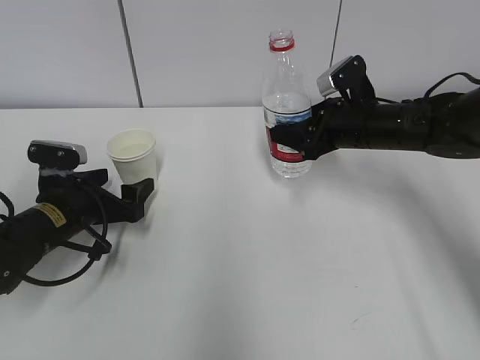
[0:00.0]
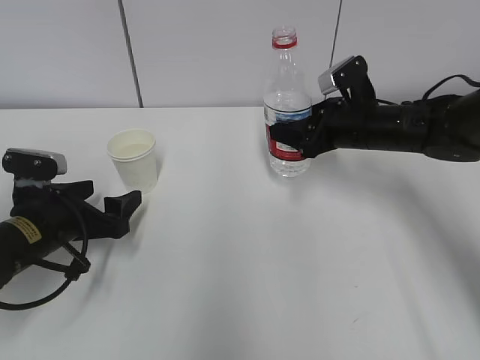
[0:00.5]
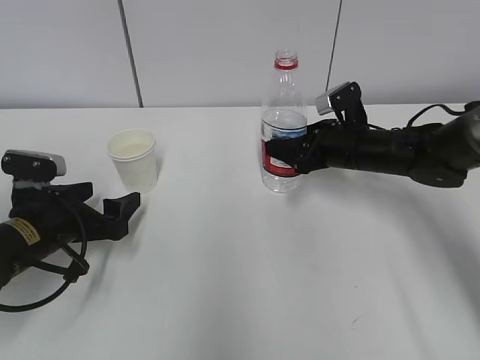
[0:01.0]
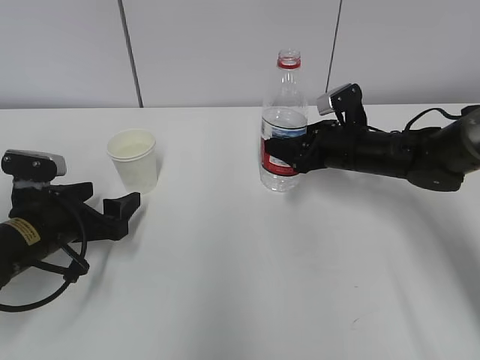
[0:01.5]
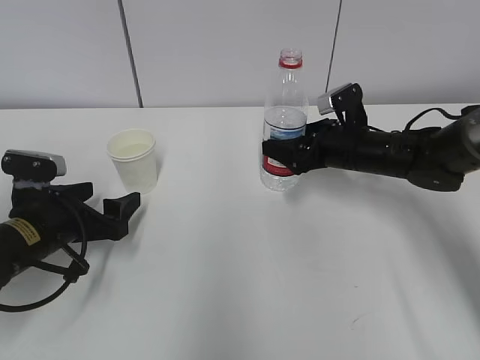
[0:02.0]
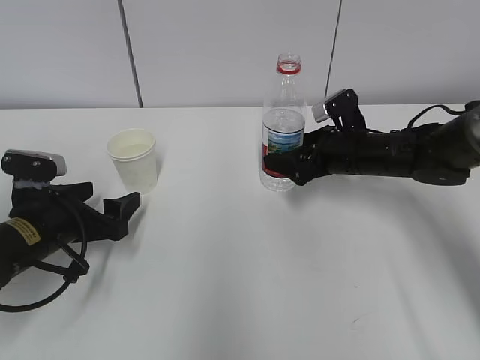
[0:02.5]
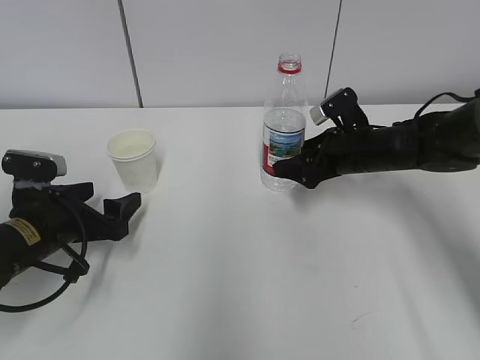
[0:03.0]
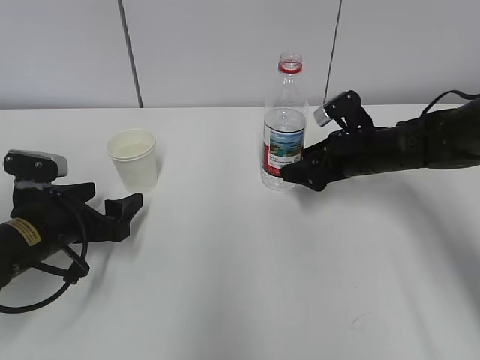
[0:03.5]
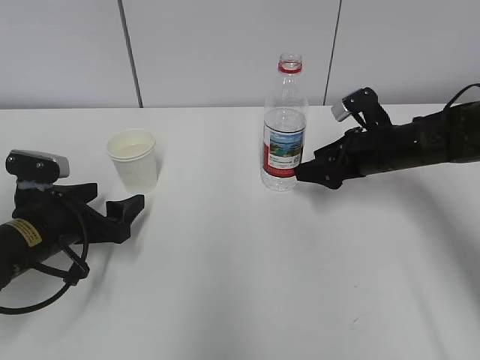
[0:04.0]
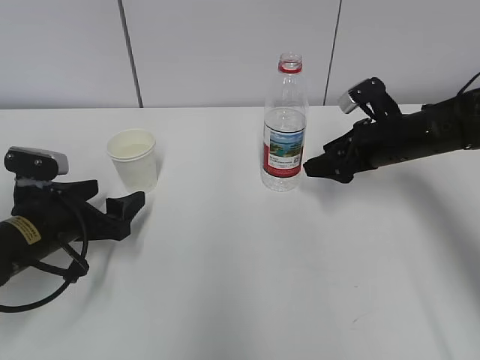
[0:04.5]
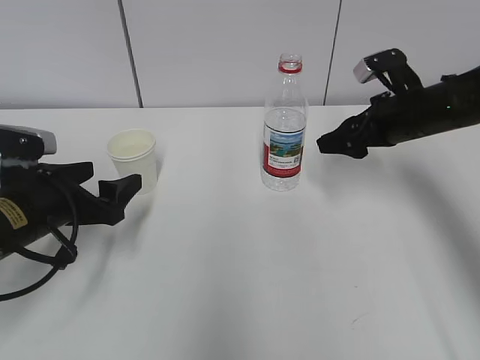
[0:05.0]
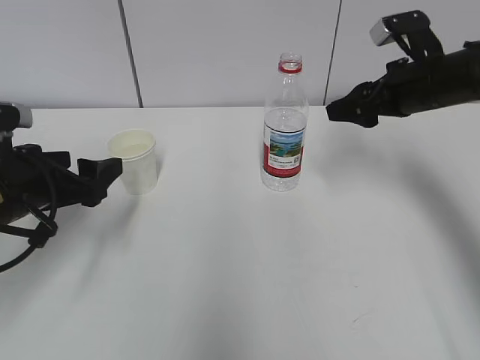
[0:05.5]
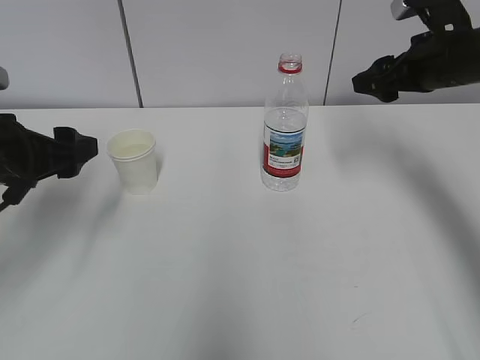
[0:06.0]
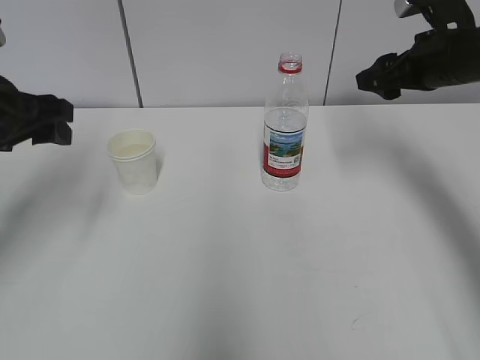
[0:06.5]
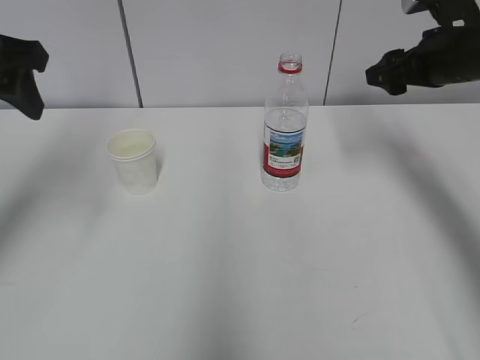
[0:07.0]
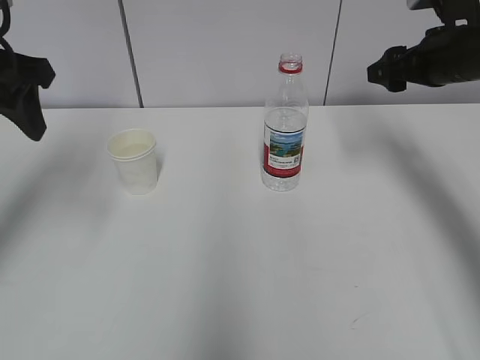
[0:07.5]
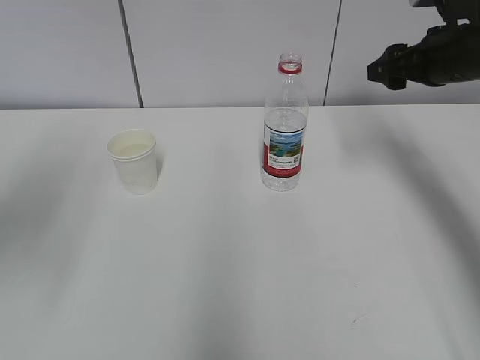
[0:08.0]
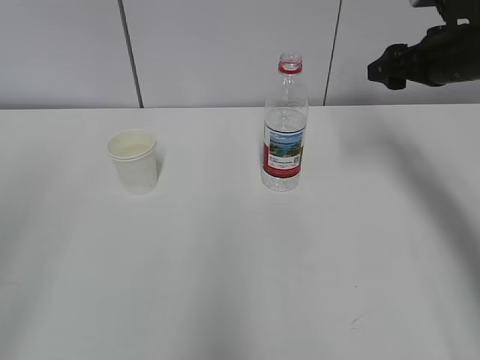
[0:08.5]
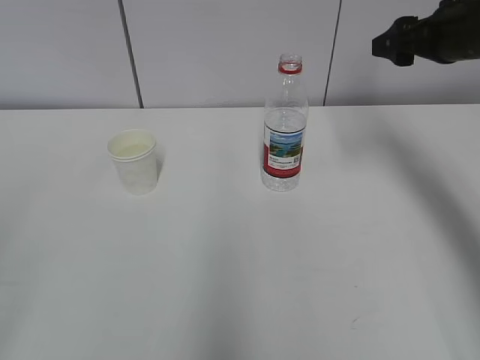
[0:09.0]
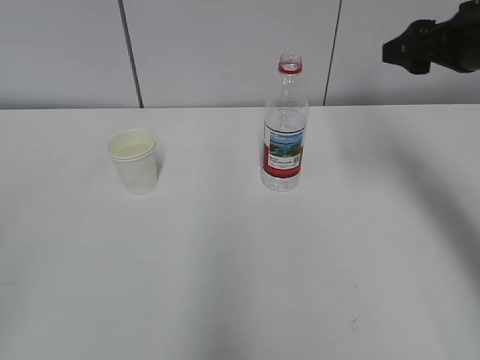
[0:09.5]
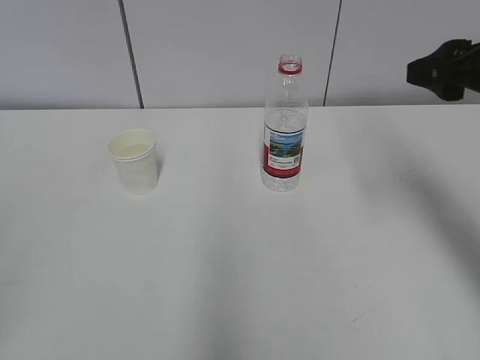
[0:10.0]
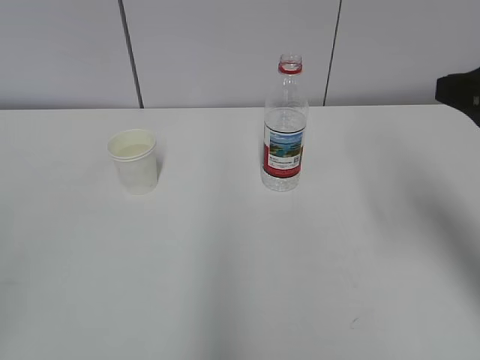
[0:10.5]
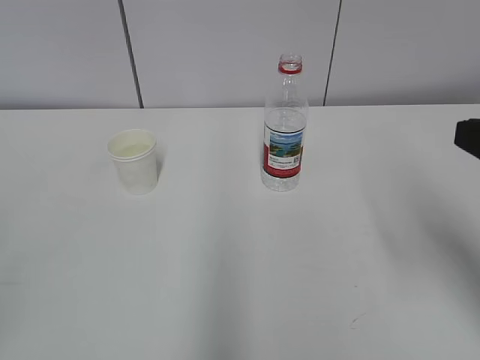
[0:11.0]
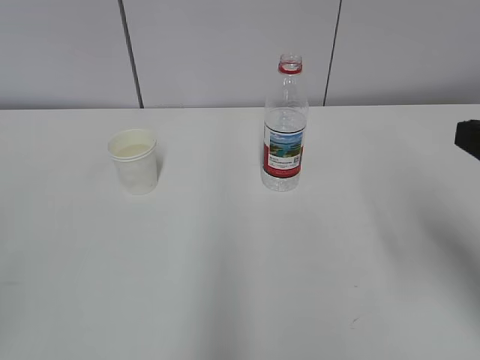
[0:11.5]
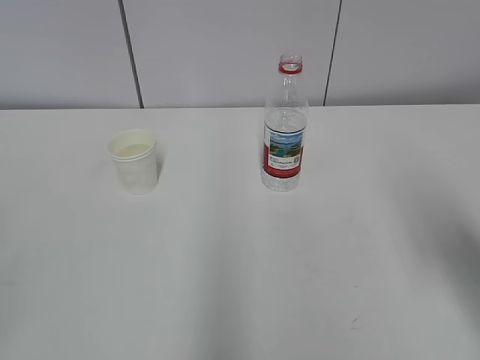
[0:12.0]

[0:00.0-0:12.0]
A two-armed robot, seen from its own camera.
0:00.0 to 0:02.0: The right gripper opens up.
0:02.0 to 0:04.0: The grippers move only a little.
0:04.0 to 0:06.0: The grippers both shift upward by about 15 cm.
0:06.0 to 0:08.0: The left gripper travels upward and backward by roughly 15 cm.
0:08.0 to 0:10.0: The right gripper is displaced backward by approximately 10 cm.
0:10.0 to 0:12.0: The right gripper is displaced backward by some 10 cm.

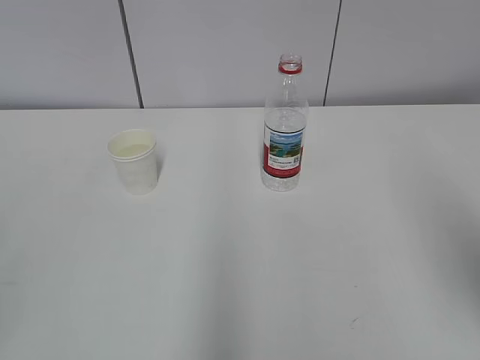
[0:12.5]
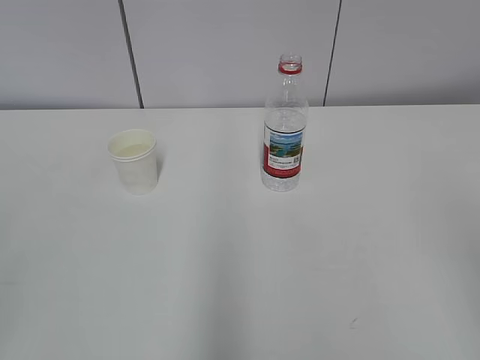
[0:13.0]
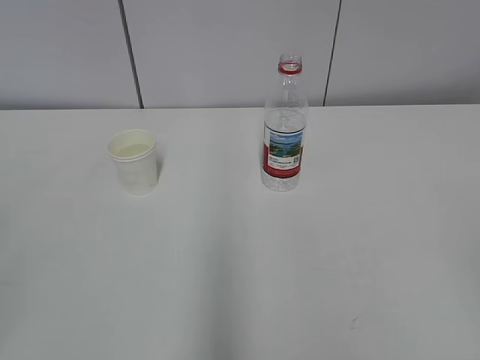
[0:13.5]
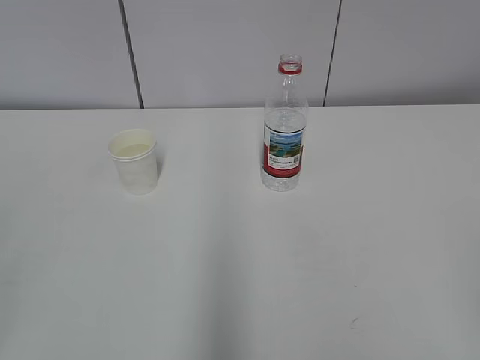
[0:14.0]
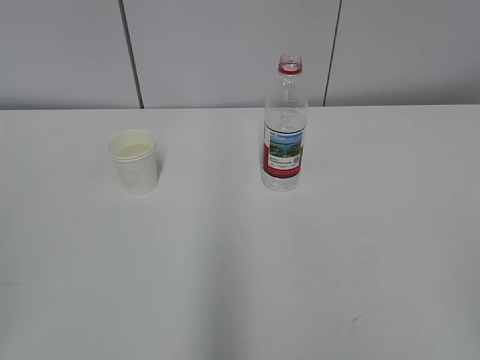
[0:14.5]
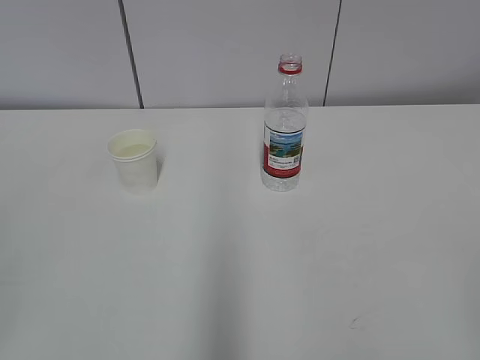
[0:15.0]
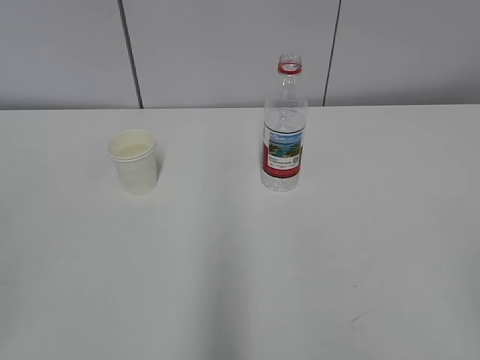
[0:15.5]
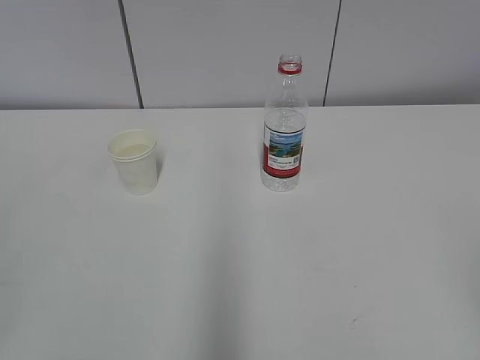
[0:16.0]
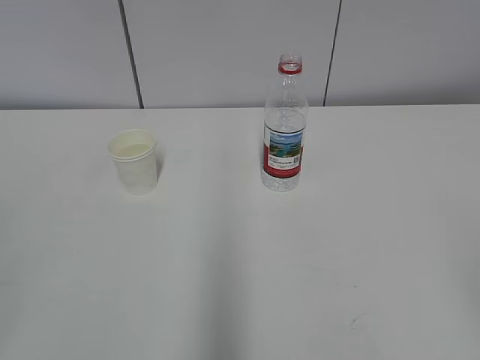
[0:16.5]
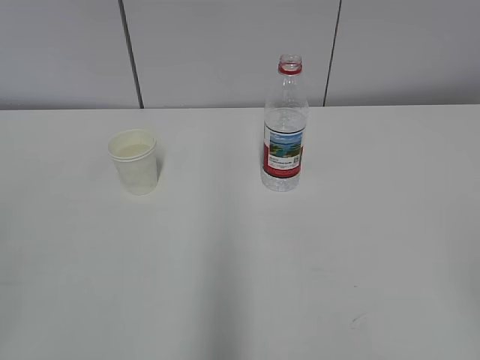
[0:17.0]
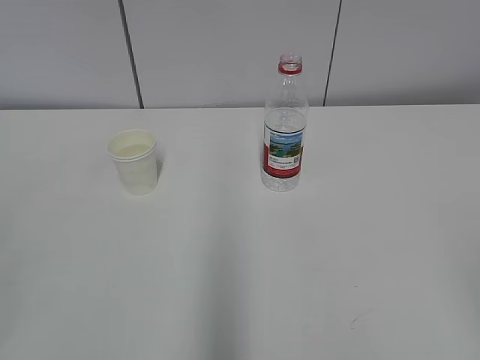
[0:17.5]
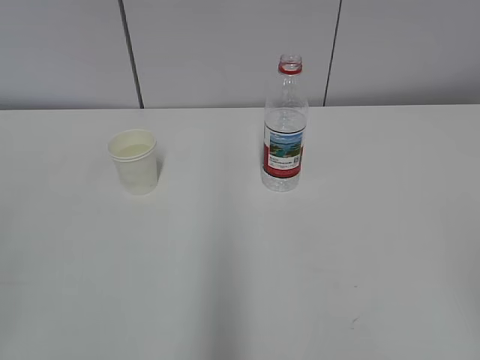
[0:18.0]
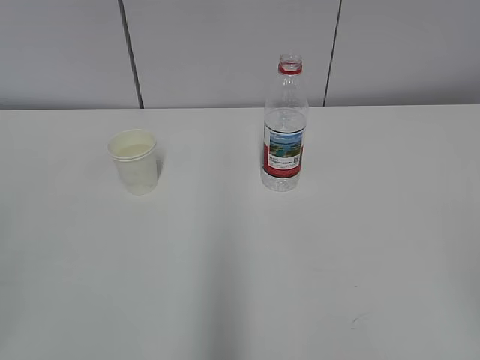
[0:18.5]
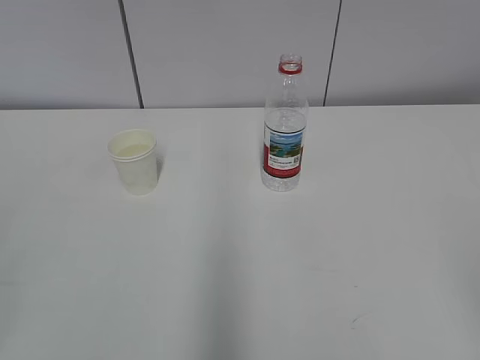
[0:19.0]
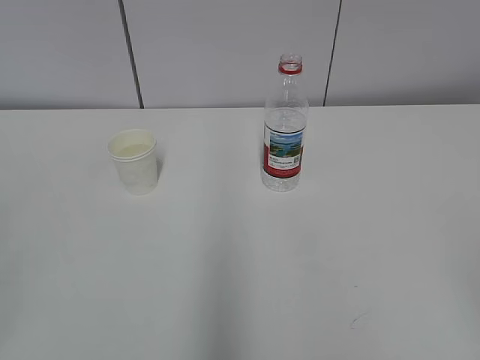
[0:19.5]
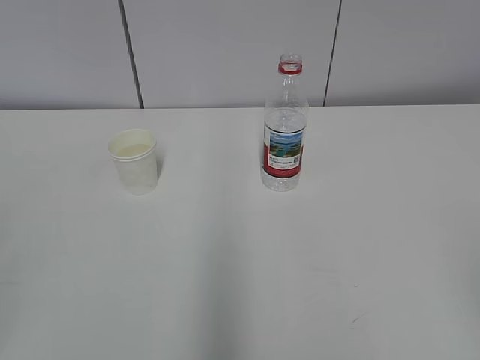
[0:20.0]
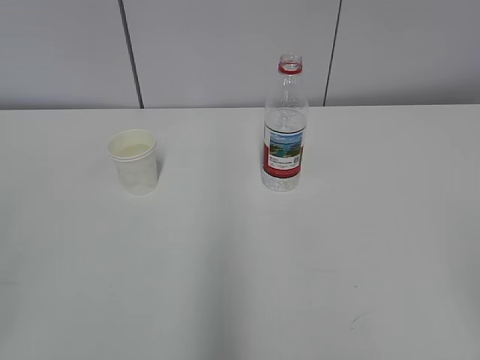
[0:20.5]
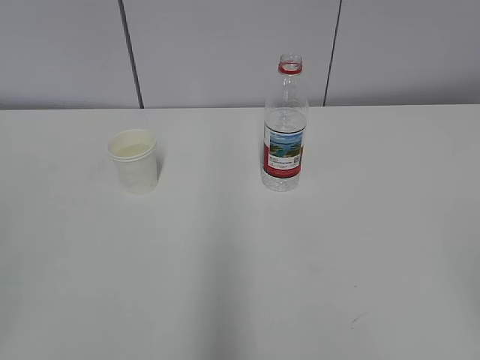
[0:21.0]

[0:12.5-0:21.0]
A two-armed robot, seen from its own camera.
0:16.5 to 0:21.0: The two grippers keep their place.

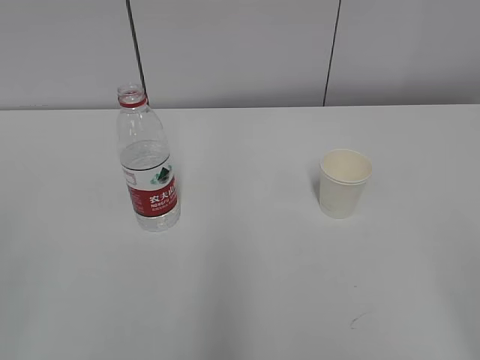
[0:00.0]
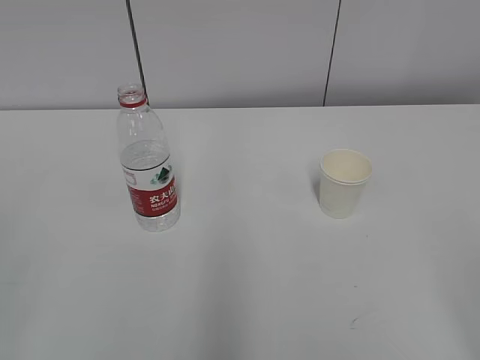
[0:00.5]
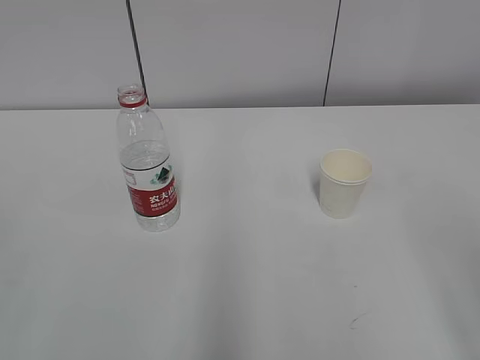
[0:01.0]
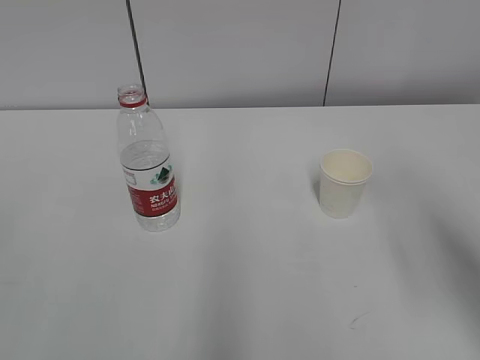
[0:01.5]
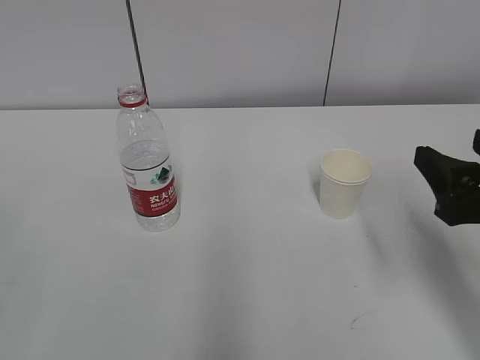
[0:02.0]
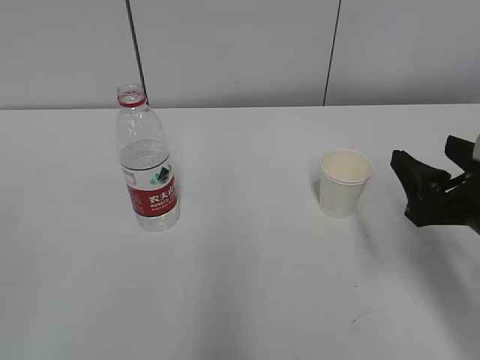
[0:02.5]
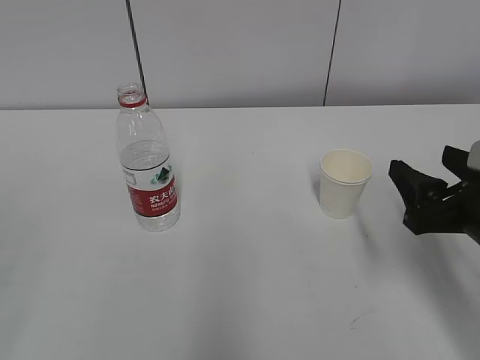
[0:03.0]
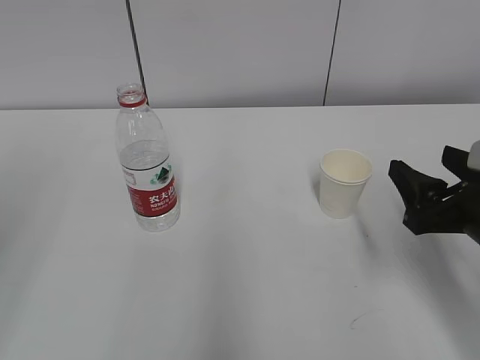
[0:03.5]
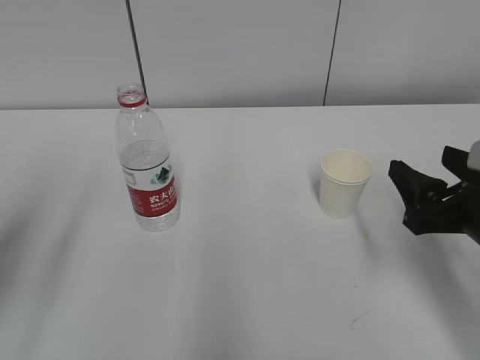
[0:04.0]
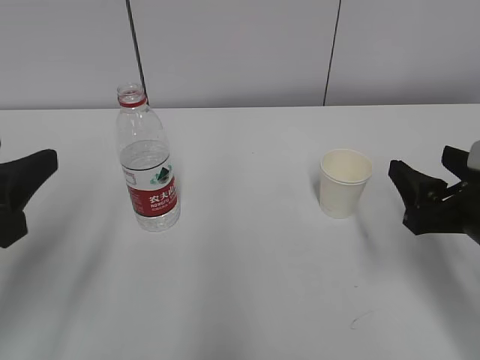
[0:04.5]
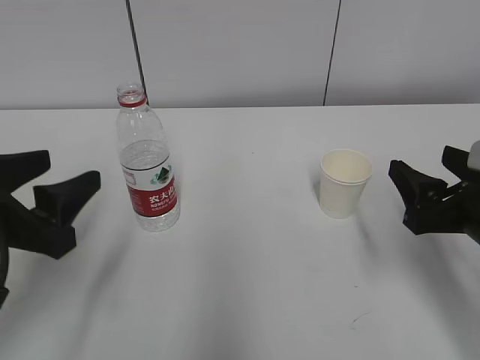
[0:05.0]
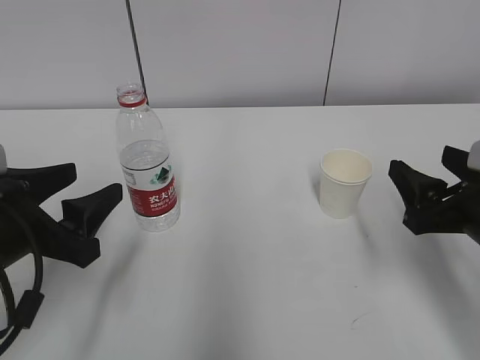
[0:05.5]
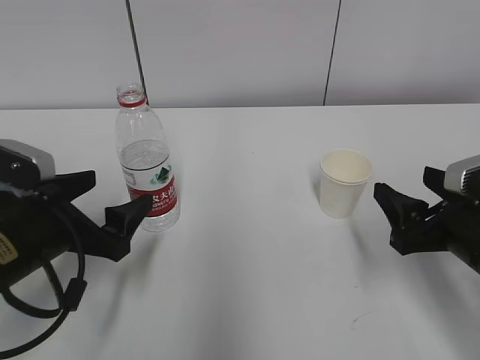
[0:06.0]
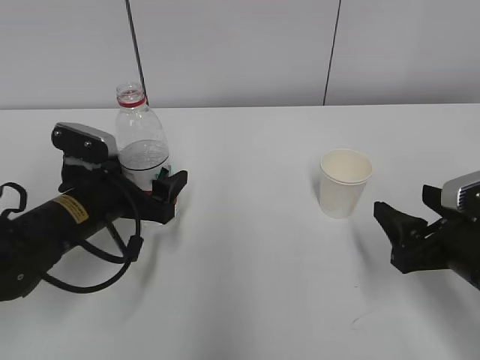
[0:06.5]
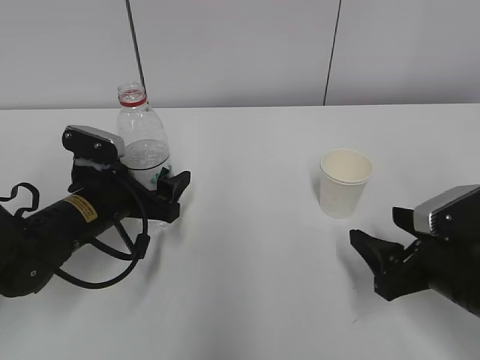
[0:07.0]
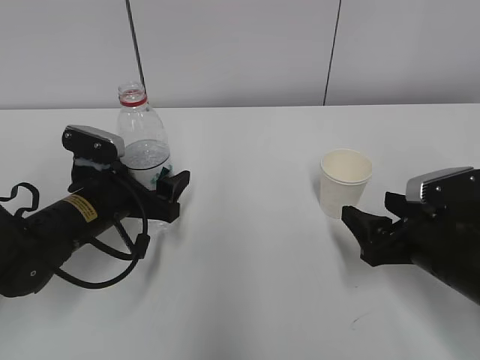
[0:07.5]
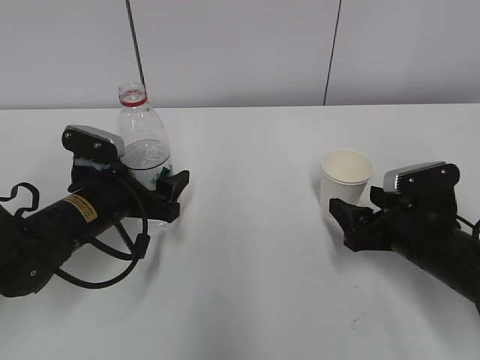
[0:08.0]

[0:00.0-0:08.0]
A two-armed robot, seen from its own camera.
0:02.0 to 0:04.0: The right gripper ends up about 5 cm from where it was. Meanwhile the left gripper travels forward by roughly 15 cm.
0:04.0 to 0:06.0: The left gripper goes some 20 cm downward, forward and to the right, and opens.
0:06.0 to 0:08.0: The left gripper travels forward by approximately 10 cm; the right gripper shifts some 10 cm downward and forward.
